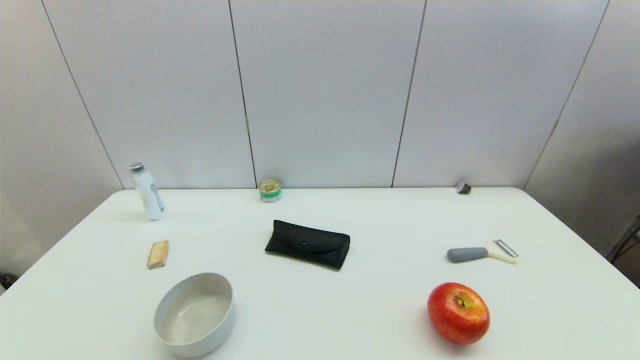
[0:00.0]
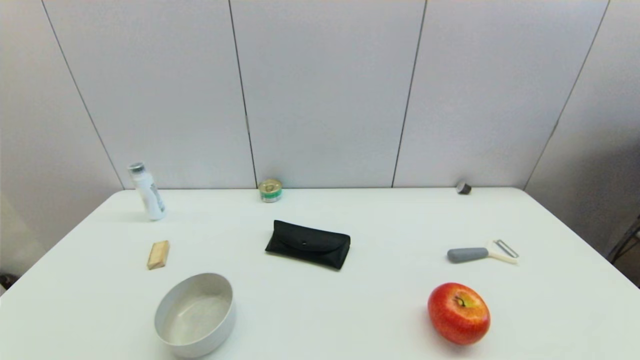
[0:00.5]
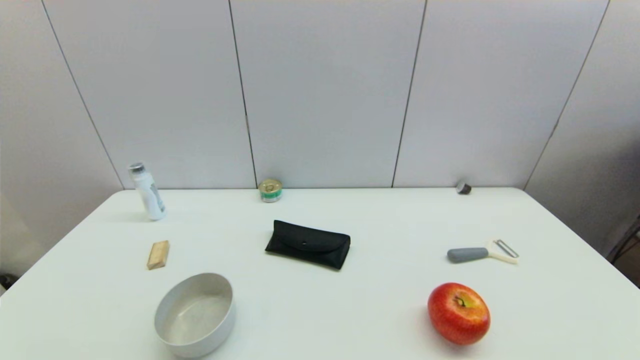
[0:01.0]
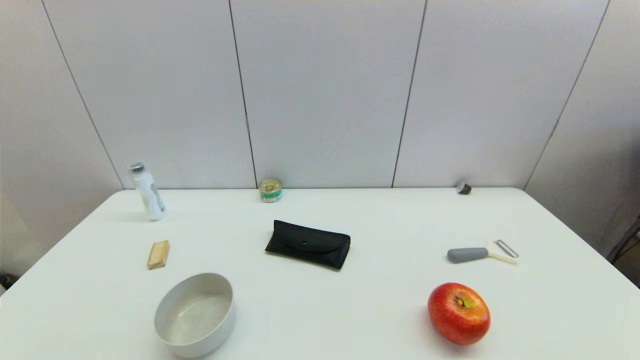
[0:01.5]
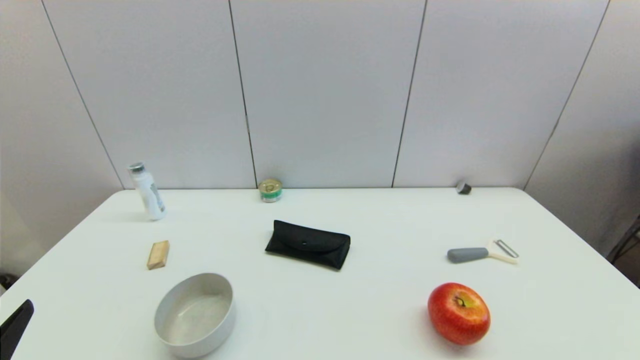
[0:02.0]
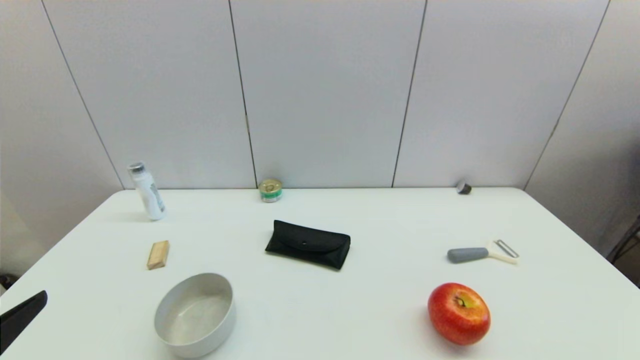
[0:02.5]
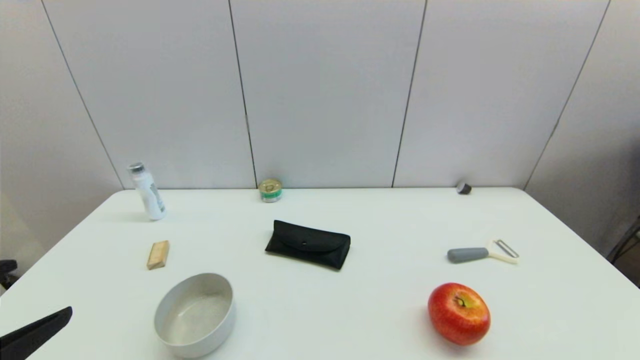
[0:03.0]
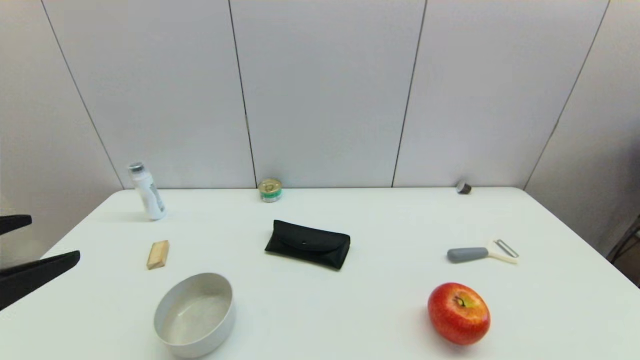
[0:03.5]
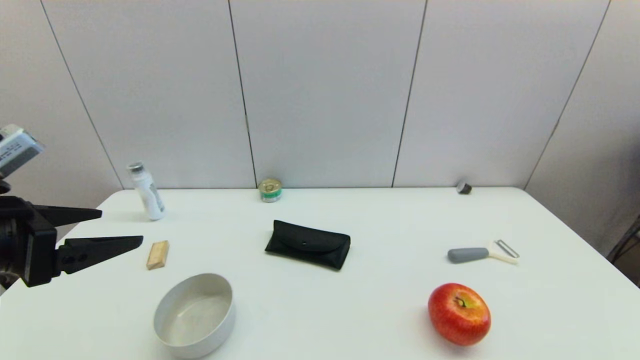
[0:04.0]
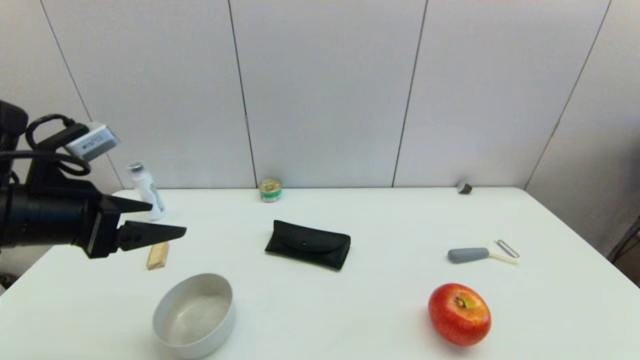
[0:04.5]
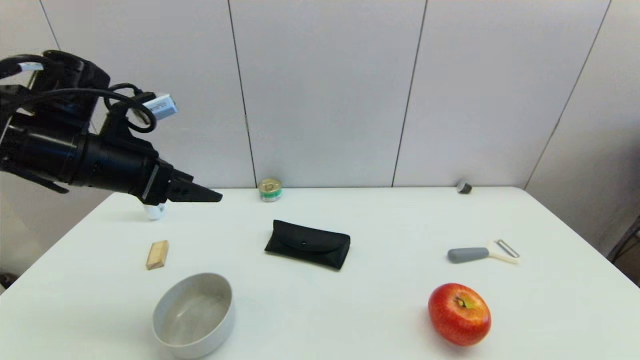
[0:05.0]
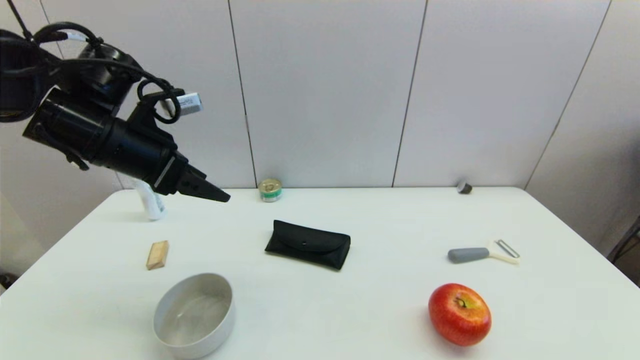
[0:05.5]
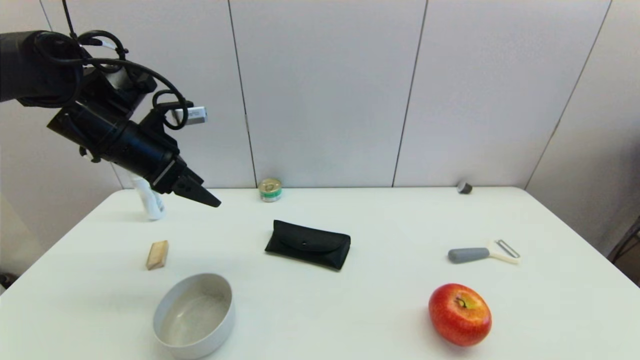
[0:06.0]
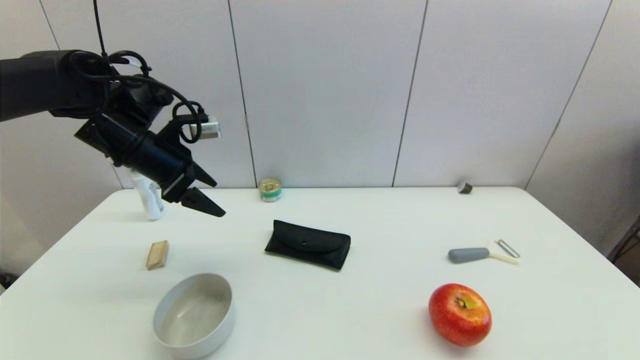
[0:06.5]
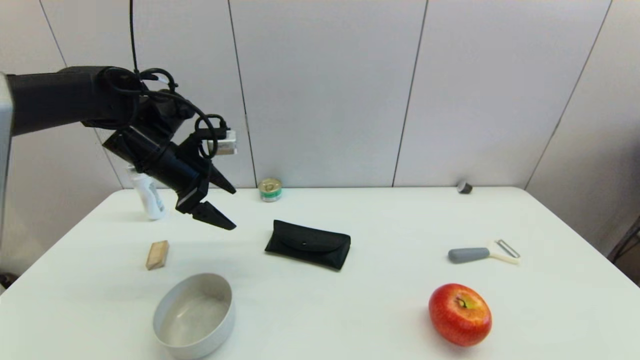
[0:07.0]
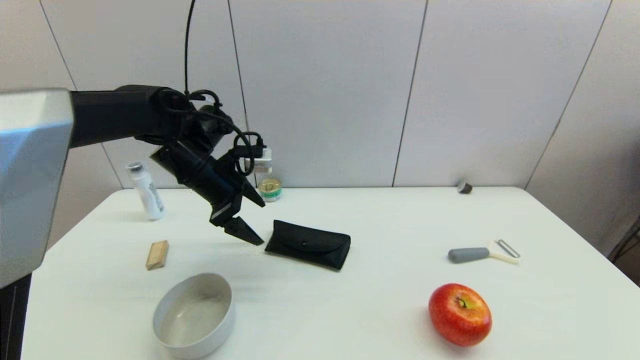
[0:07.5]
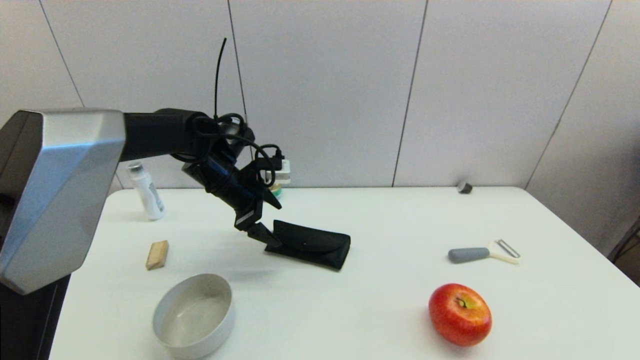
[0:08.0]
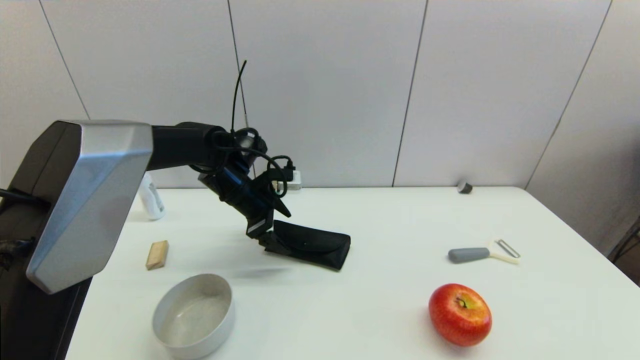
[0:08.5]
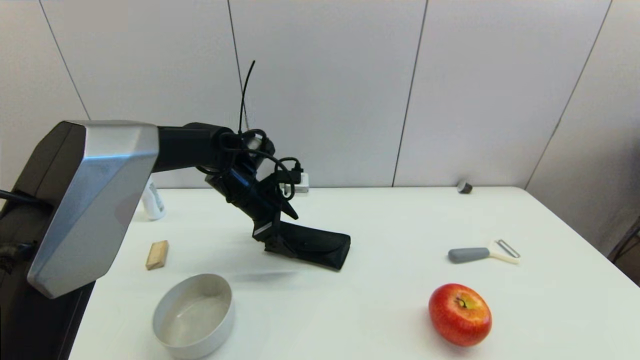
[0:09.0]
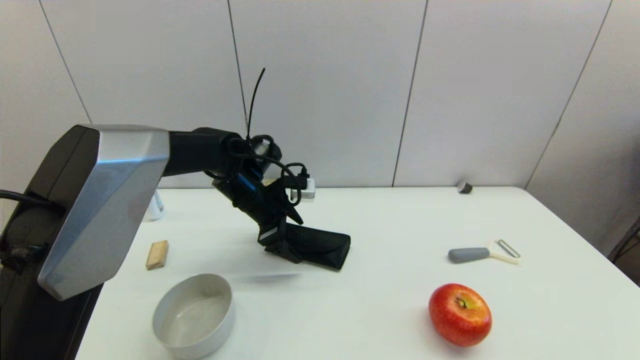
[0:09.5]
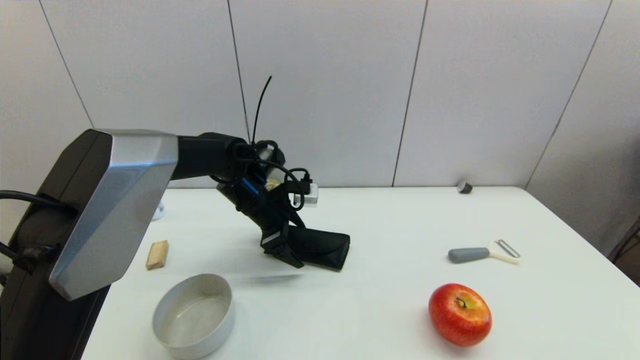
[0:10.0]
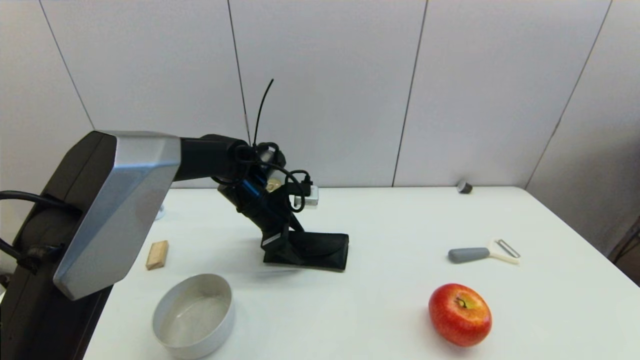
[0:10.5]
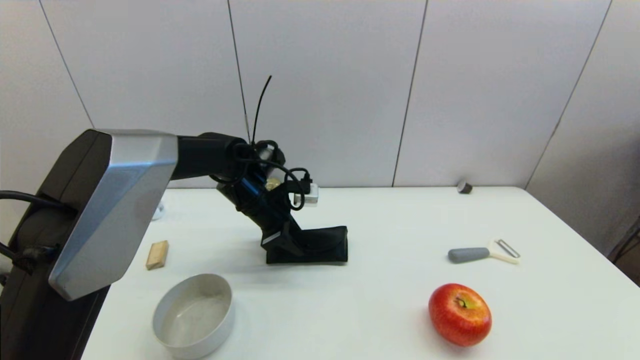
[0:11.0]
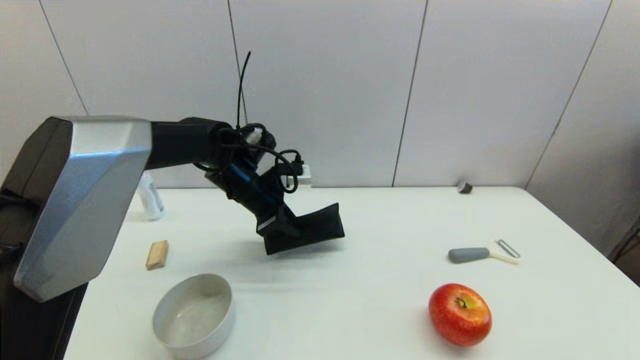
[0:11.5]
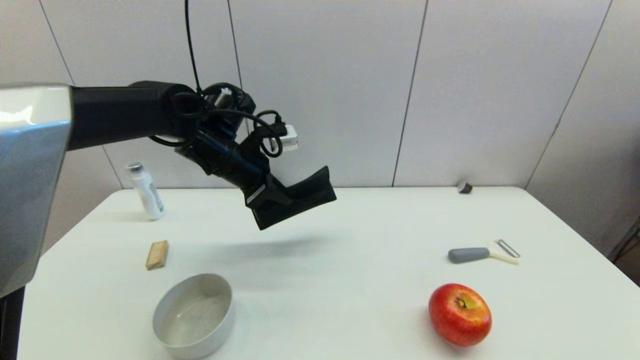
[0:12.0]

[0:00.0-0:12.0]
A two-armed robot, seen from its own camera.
Step, 0:02.0 to 0:11.0: Grasp the glasses case with left gripper.
0:02.0 to 0:04.0: The left gripper moves forward and upward, some 15 cm.
0:04.0 to 0:06.0: The left gripper travels forward by some 20 cm.
0:06.0 to 0:08.0: The left gripper heads to the right, downward and forward, covering some 15 cm.
0:08.0 to 0:10.0: The left gripper shifts by approximately 5 cm.
0:10.0 to 0:12.0: The left gripper goes some 10 cm upward, and closes.

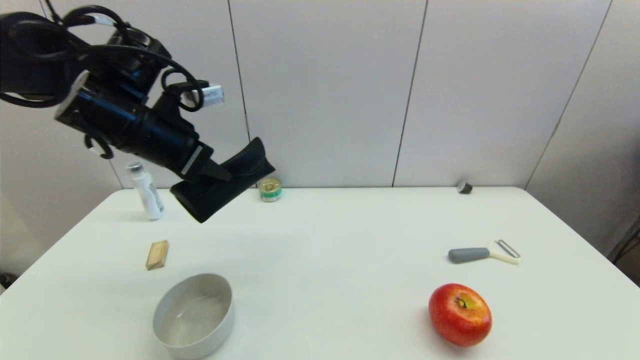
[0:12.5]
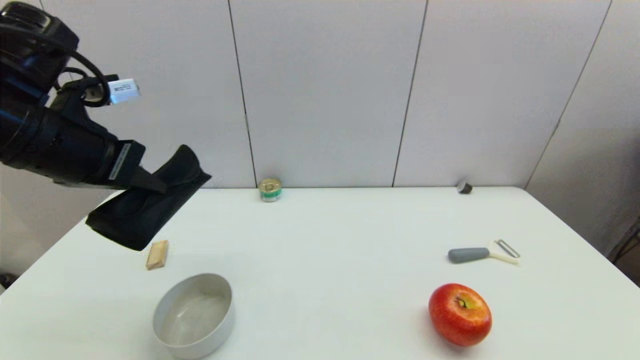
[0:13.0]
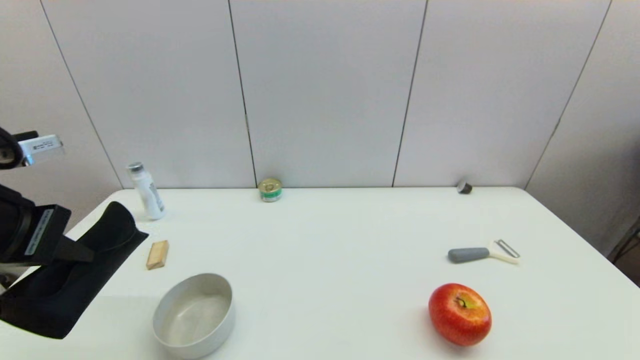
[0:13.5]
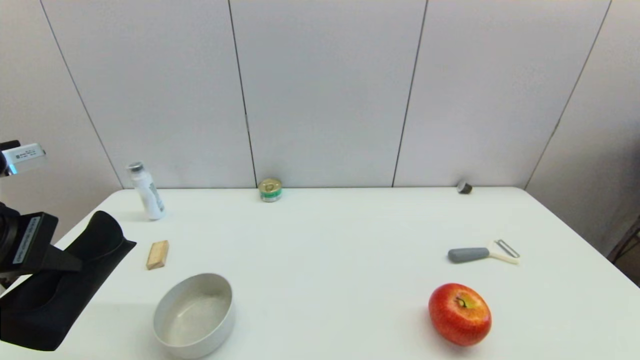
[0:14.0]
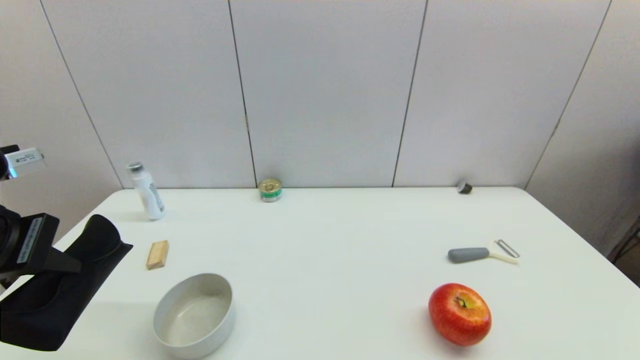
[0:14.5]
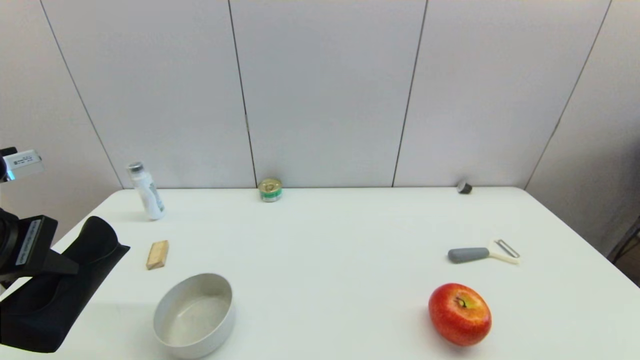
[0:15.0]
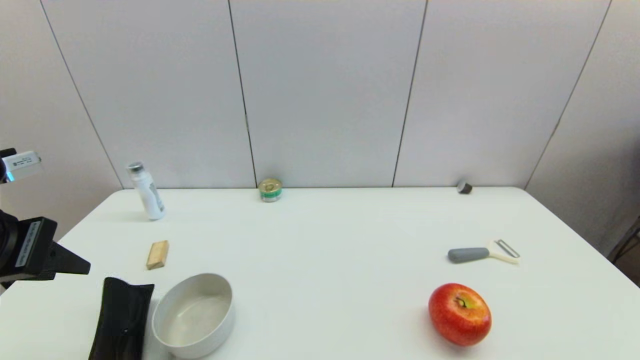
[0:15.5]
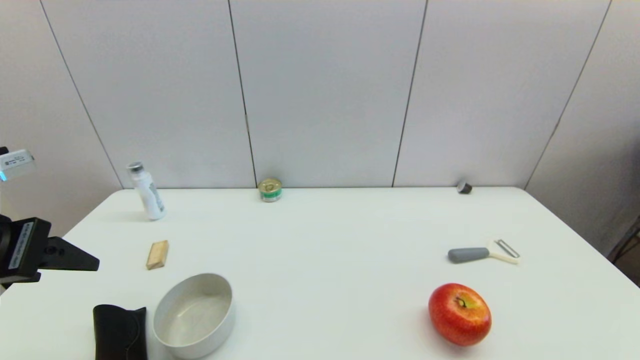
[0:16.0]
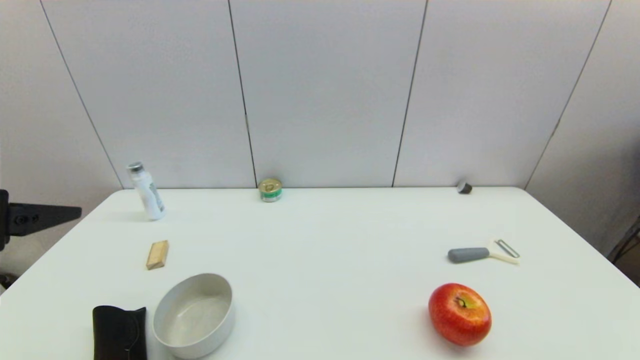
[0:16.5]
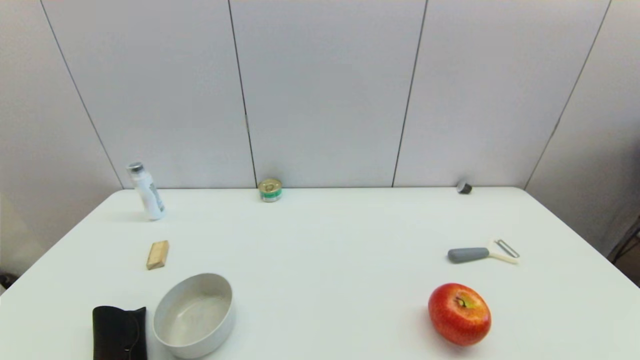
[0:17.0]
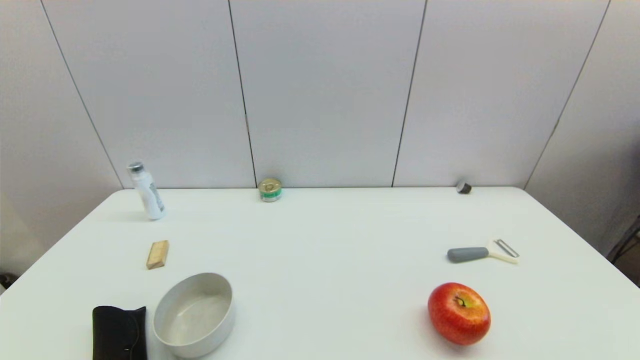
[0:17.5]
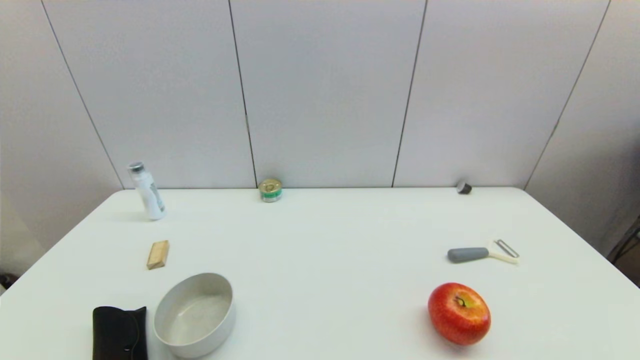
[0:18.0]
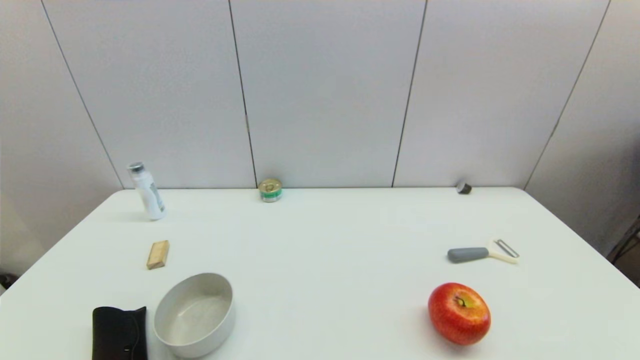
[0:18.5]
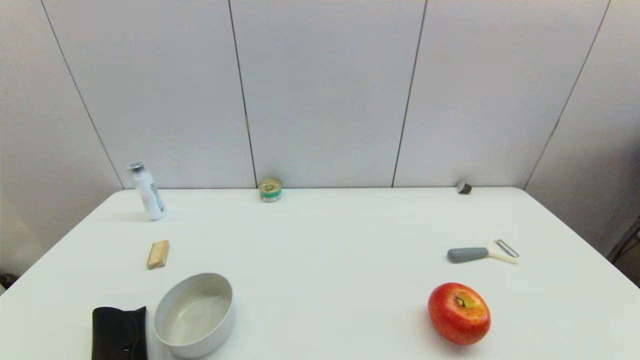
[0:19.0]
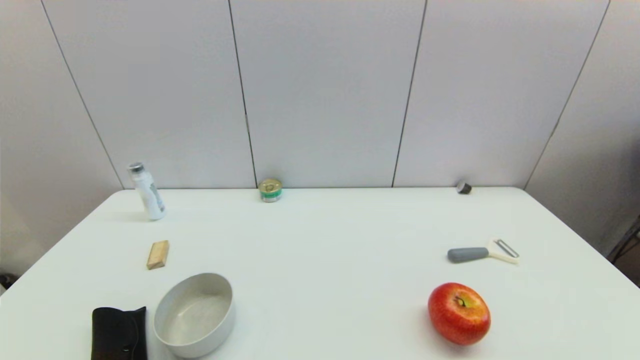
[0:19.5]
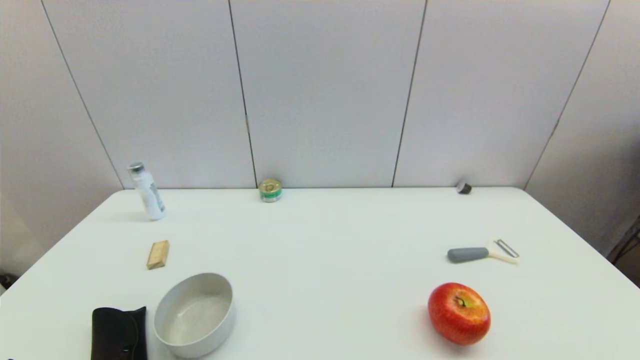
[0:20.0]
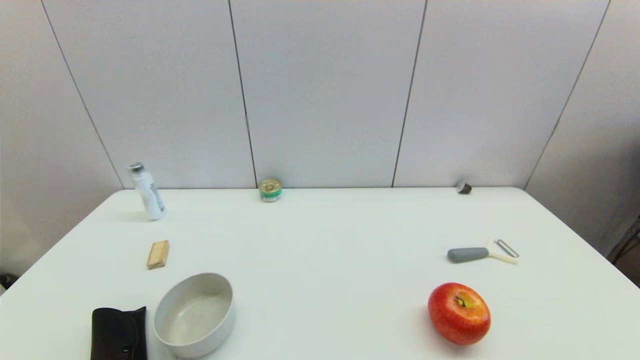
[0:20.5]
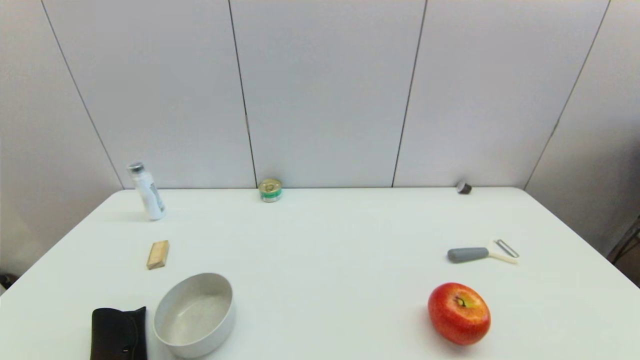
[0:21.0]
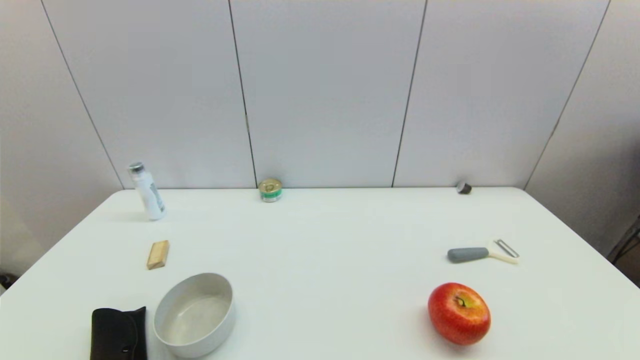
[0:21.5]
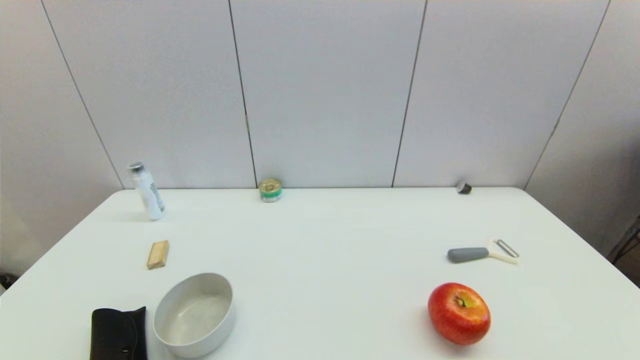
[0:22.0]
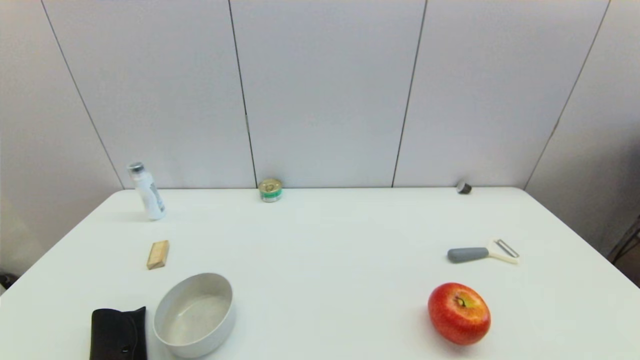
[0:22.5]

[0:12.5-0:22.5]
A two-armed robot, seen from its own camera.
Step, 0:12.5 to 0:16.0: Place the glasses case on the table with left gripper.
0:12.5 to 0:14.5: The left gripper goes approximately 15 cm backward and to the left.
0:14.5 to 0:16.5: The left gripper opens its fingers.
0:16.5 to 0:18.5: The left gripper goes some 20 cm downward and backward.
0:20.5 to 0:22.5: The two grippers keep their place.
